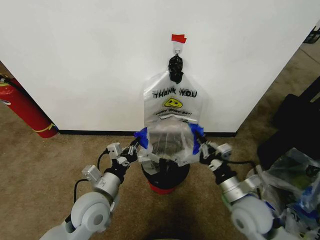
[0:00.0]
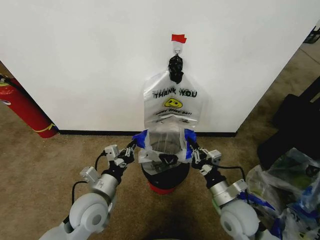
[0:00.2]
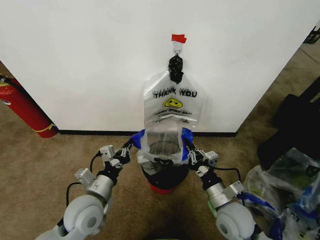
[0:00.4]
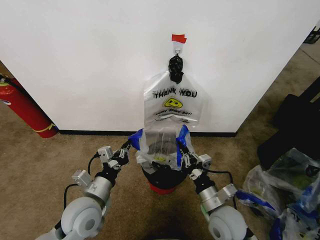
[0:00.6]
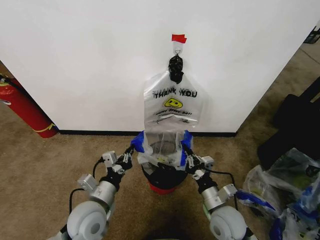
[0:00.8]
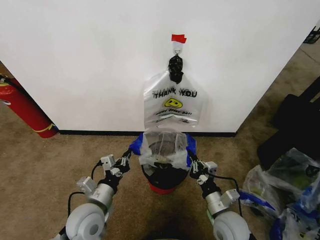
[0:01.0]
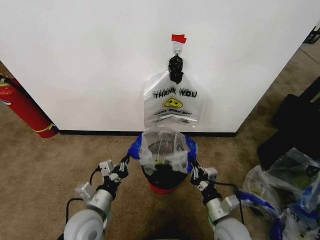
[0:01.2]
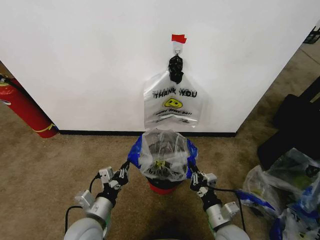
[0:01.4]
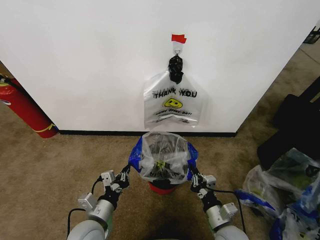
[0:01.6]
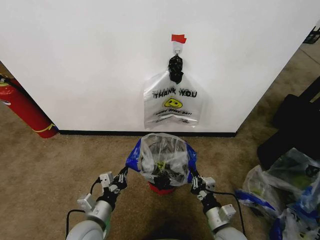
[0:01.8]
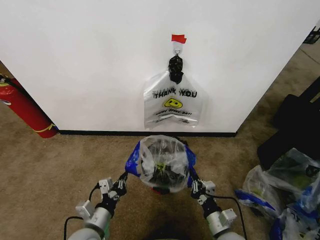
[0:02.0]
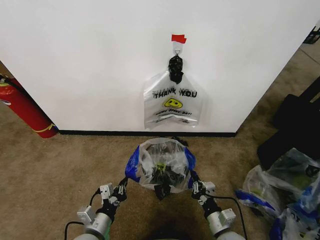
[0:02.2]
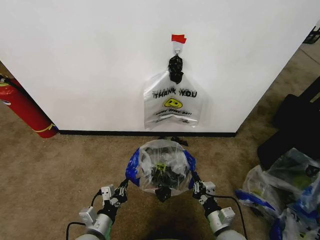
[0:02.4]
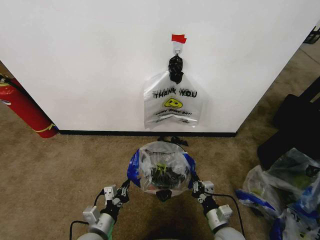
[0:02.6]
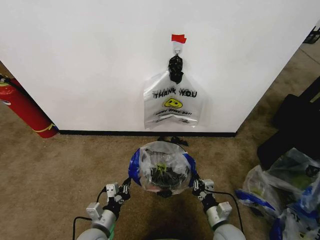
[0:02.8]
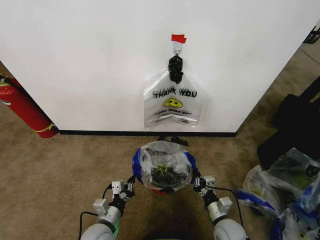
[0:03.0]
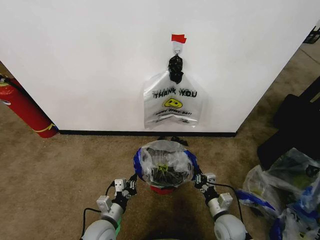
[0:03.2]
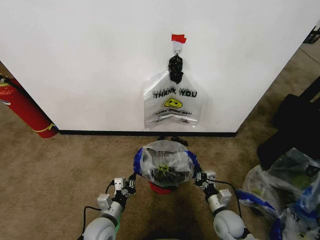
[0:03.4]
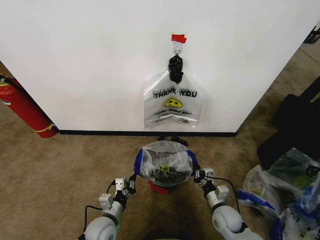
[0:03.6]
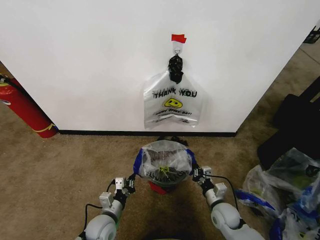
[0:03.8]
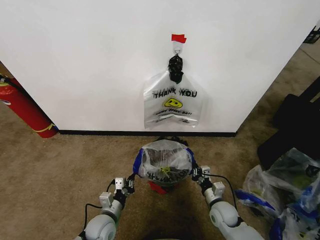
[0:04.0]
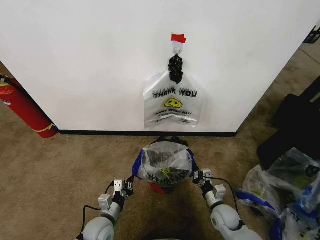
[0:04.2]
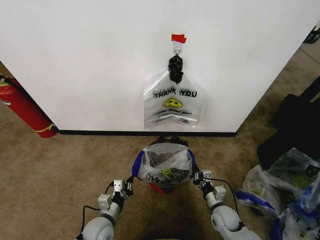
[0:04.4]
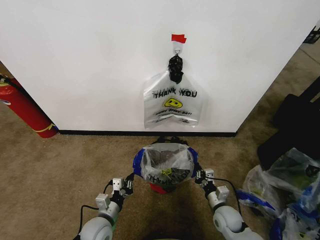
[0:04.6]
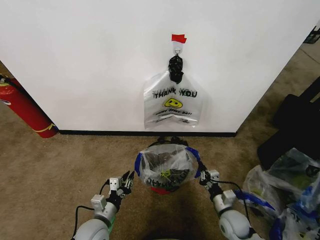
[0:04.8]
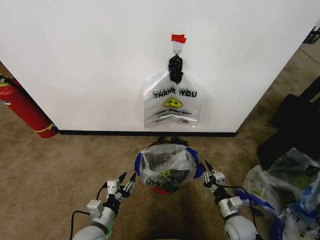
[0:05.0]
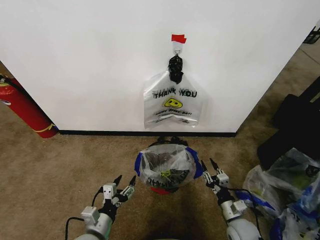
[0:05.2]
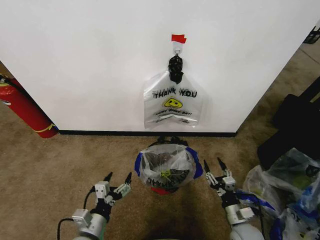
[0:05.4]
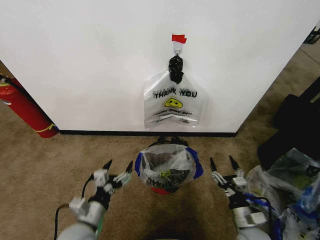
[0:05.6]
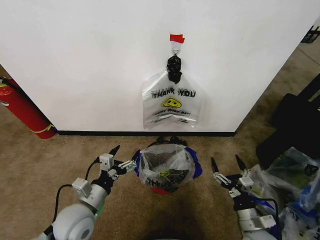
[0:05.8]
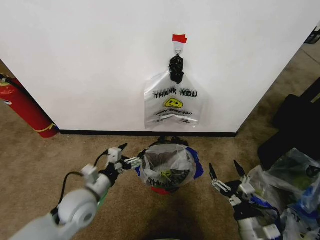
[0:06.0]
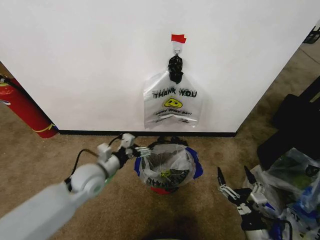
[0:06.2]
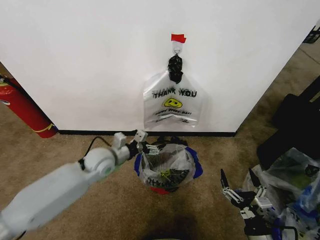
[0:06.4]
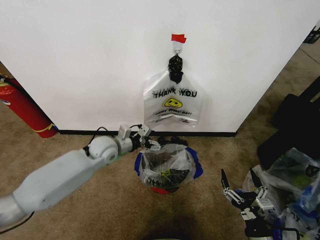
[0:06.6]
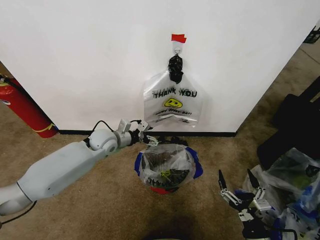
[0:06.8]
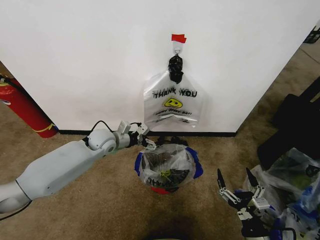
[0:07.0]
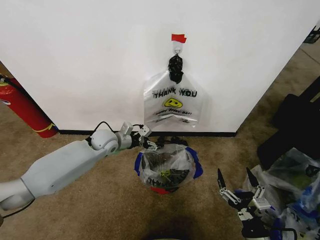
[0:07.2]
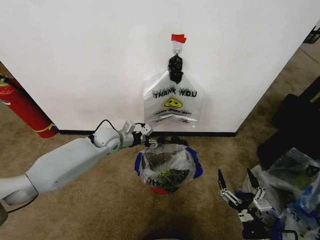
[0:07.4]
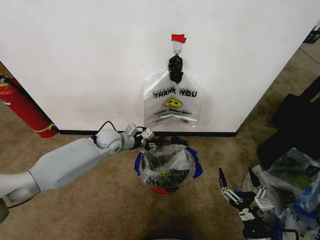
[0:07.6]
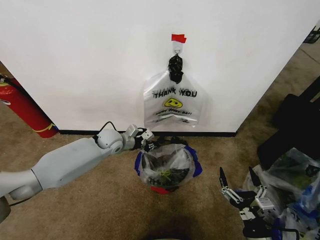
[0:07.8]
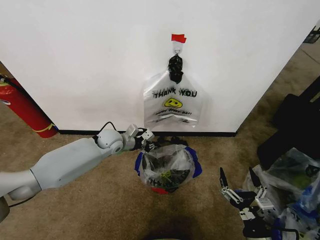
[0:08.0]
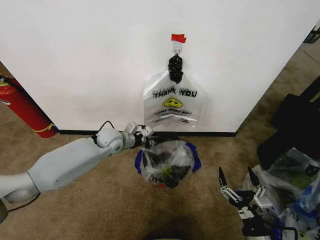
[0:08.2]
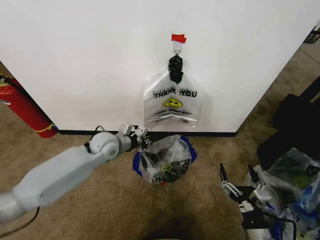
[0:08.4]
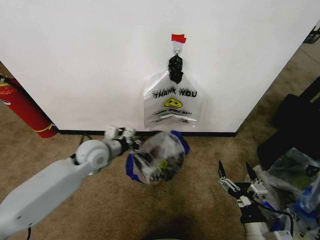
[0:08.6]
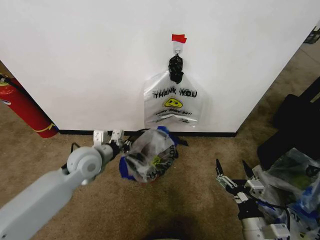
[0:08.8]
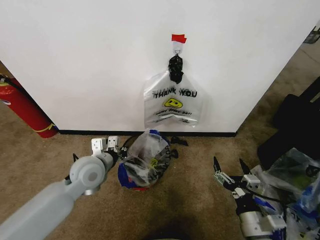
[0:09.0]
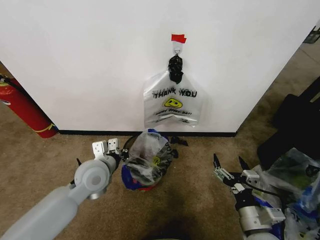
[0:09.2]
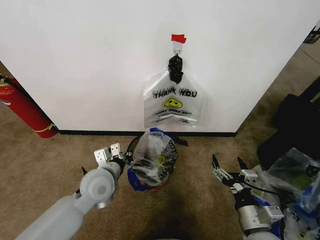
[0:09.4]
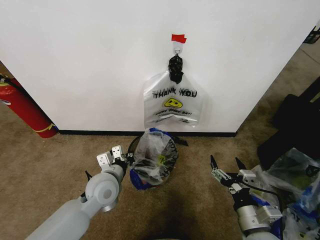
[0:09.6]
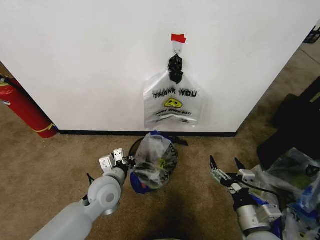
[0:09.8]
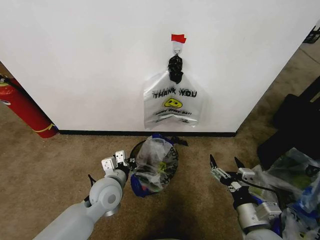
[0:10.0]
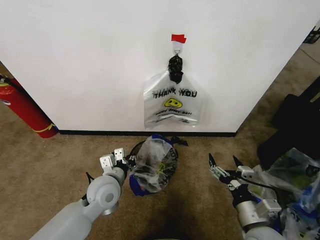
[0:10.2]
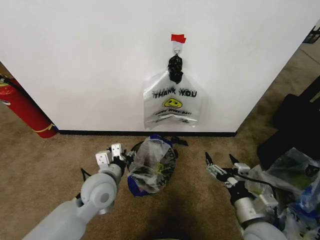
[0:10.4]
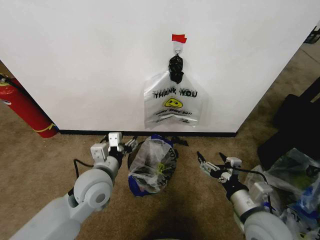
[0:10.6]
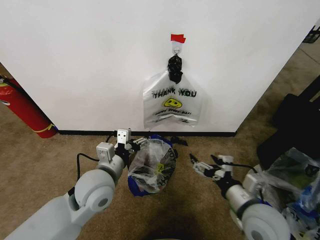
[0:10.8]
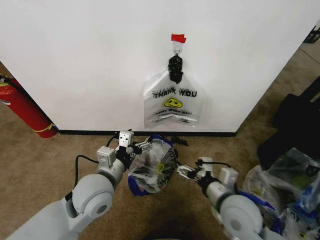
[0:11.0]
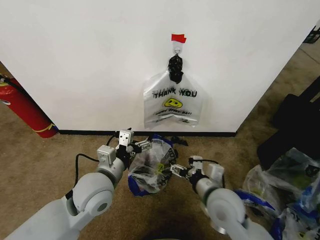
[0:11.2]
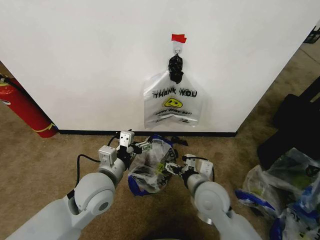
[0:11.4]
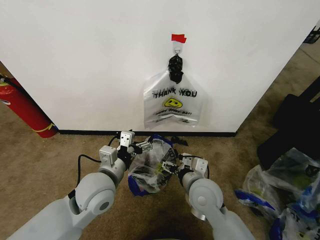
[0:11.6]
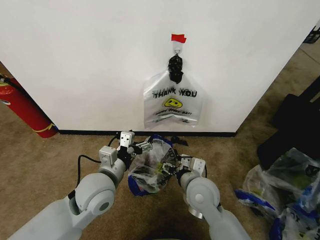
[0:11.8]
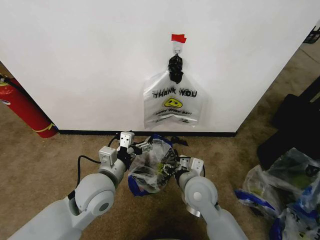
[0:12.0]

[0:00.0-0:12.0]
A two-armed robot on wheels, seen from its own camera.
Task of the whole recording: Pick up the garbage bag from the wall and place it over the trash bin.
0.0 to 1.6 s: The right gripper goes some 10 cm downward. Meanwhile the left gripper is displaced downward and backward by roughly 10 cm.
1.6 to 3.0 s: The grippers both shift downward by some 5 cm.
3.0 to 4.4 s: The right gripper shifts roughly 5 cm forward. Meanwhile the left gripper moves roughly 5 cm.
4.4 to 6.0 s: The right gripper shifts some 15 cm backward and upward, and opens up, while the left gripper shifts about 15 cm upward, and opens up.
6.0 to 7.6 s: The right gripper shifts approximately 5 cm backward; the left gripper moves forward, about 25 cm, and closes its fingers.
7.6 to 9.0 s: The left gripper travels backward by roughly 15 cm. Meanwhile the right gripper ends up about 5 cm from where it was.
9.0 to 10.4 s: The left gripper changes place by approximately 5 cm, and opens.
10.4 to 12.0 s: The left gripper opens, while the right gripper shifts some 20 cm to the left and forward, and closes up.

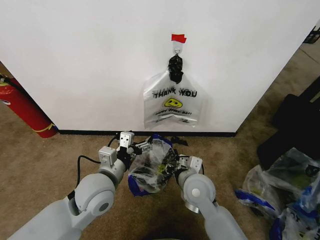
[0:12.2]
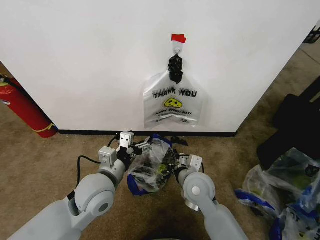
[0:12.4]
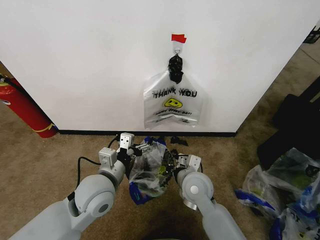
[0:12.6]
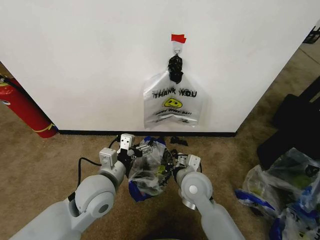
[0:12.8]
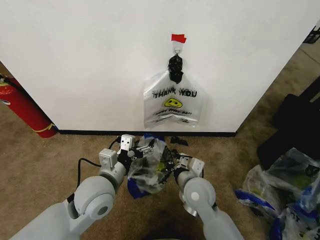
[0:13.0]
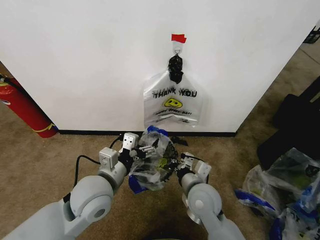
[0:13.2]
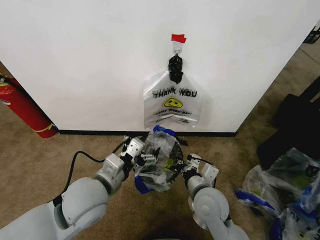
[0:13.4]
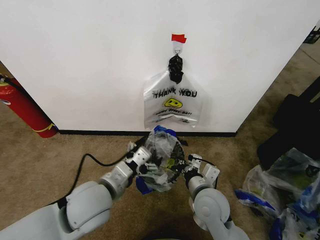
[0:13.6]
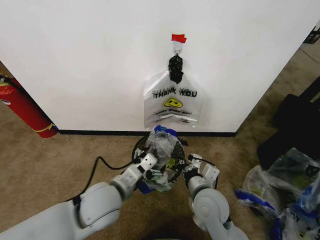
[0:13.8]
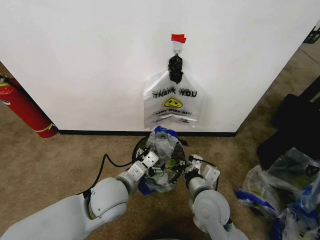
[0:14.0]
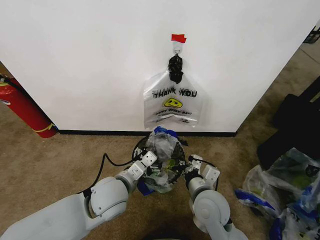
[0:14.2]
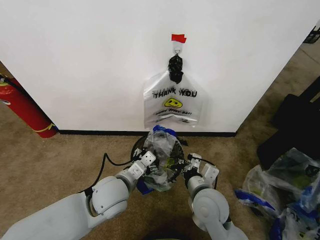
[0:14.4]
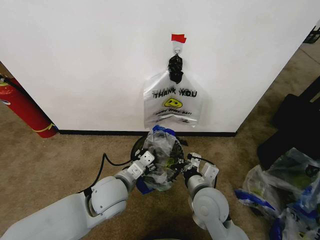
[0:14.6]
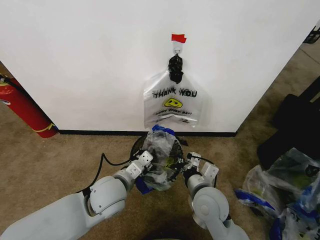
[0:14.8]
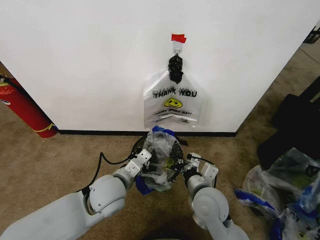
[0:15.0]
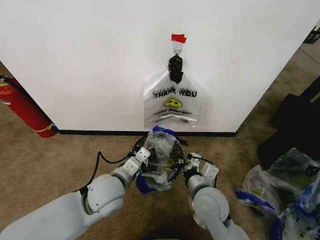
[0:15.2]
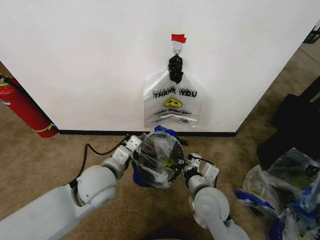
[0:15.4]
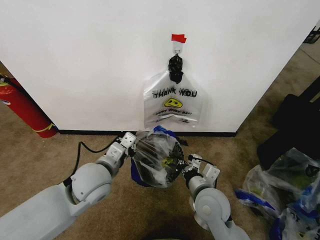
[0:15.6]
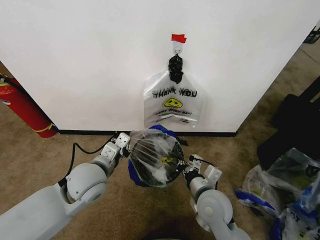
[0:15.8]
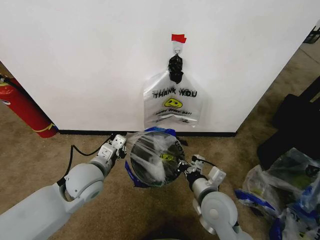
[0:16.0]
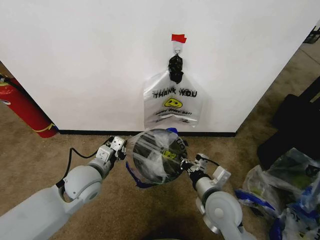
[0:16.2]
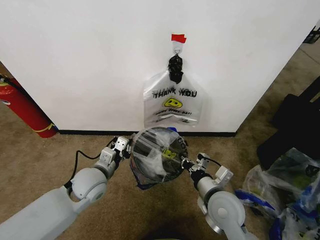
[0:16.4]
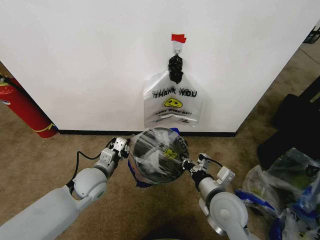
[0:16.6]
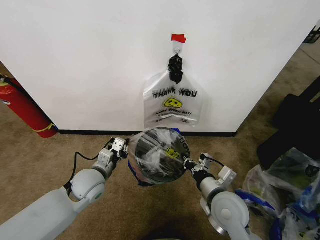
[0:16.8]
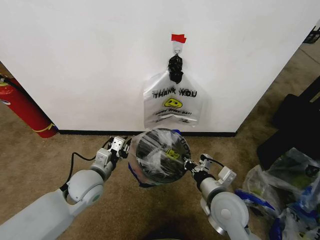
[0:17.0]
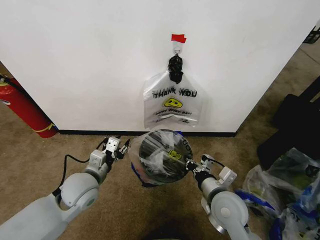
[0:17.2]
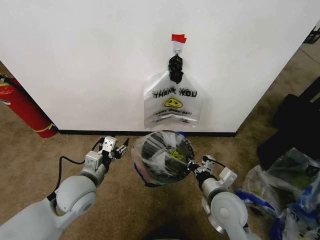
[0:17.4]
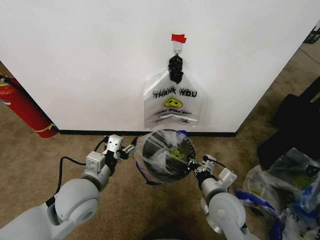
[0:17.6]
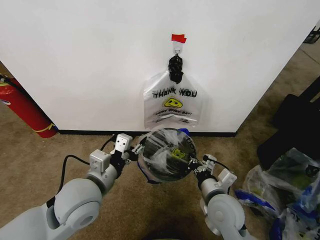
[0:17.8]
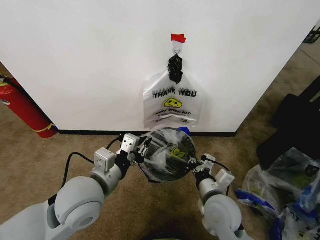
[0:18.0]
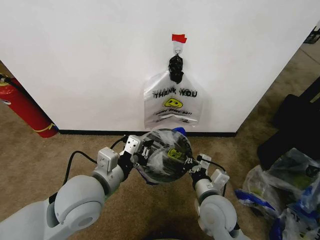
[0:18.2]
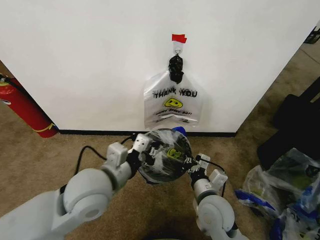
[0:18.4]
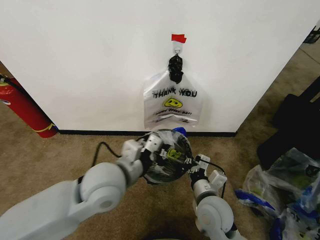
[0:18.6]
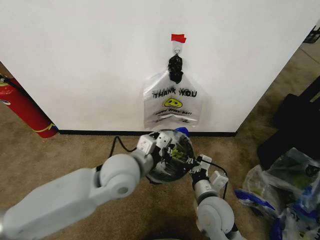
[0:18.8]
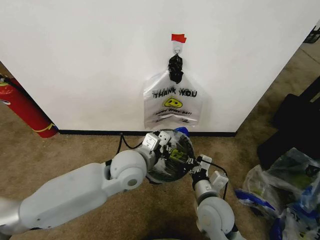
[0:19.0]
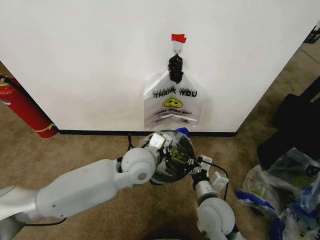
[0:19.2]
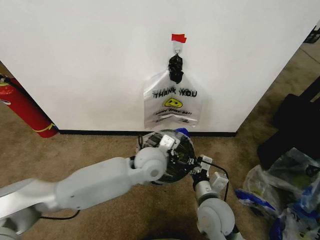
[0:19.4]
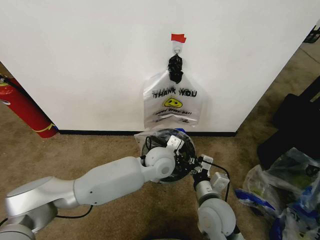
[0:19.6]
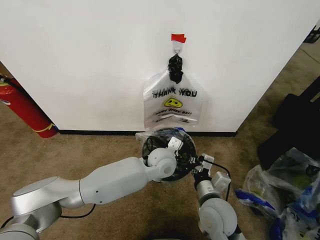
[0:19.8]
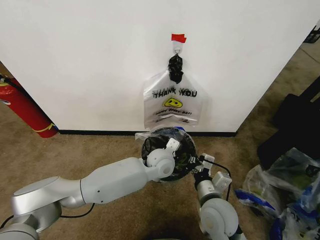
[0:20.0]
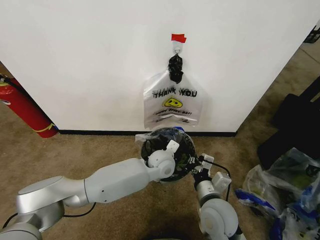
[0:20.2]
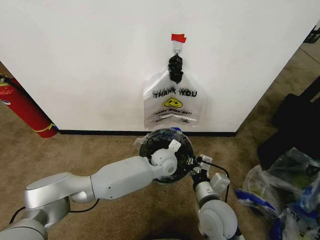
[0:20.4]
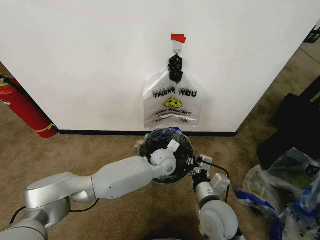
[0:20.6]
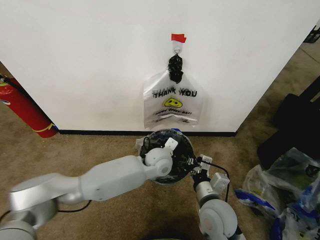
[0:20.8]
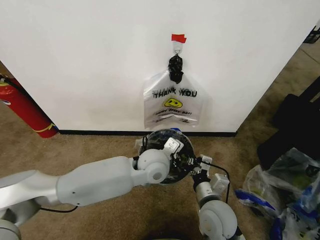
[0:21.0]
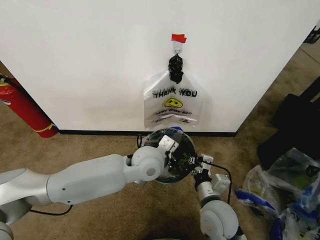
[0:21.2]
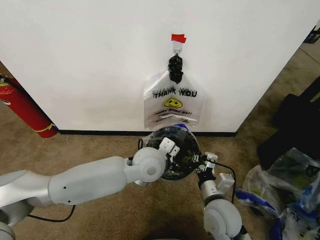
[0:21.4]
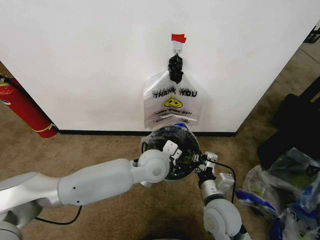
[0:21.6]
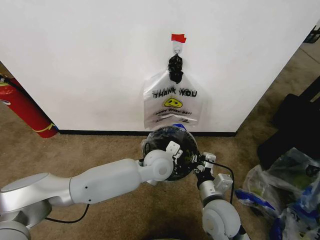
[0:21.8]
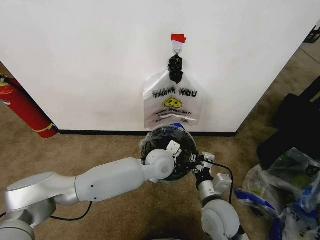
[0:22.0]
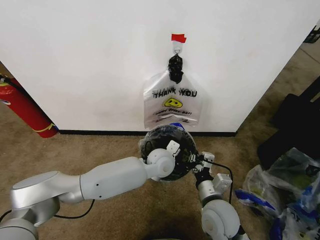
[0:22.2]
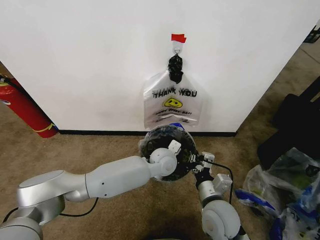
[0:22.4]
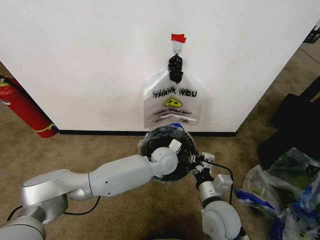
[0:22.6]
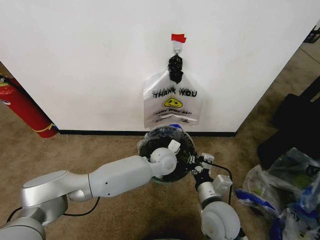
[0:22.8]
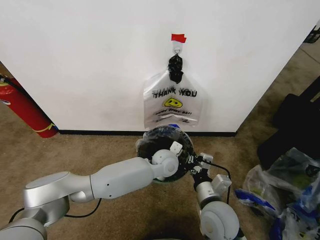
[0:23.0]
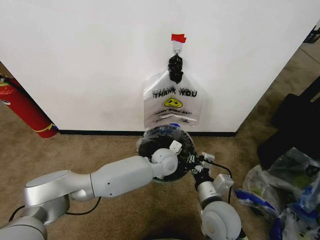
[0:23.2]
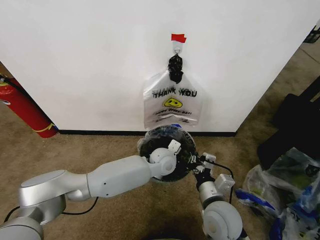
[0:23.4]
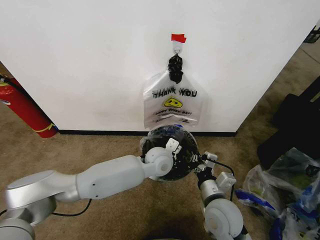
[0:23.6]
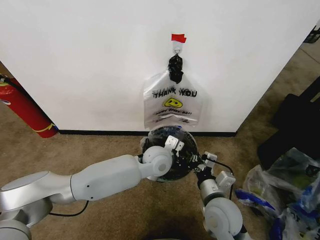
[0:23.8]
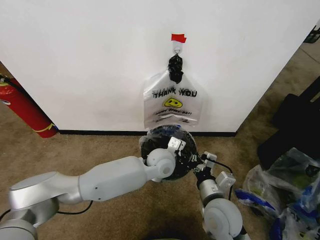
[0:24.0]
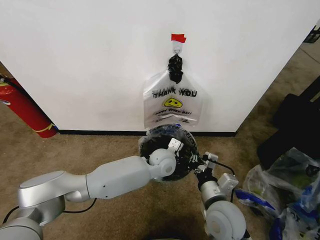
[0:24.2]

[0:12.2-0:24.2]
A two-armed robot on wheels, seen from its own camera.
Task of the whole recording: Pick up the garbage bag from the wall and place it over the trash bin.
12.2 to 13.8 s: The right gripper ends up some 5 cm from where it was, and closes its fingers.
13.8 to 15.2 s: The left gripper closes its fingers.
15.2 to 16.6 s: The left gripper moves to the left and forward, about 10 cm.
16.6 to 18.2 s: The left gripper goes roughly 15 cm upward and backward, and opens, then closes again.
18.2 to 19.8 s: The left gripper moves to the right, forward and downward, about 25 cm.
19.8 to 21.2 s: The left gripper heads upward, covering approximately 5 cm.
21.2 to 22.6 s: The left gripper travels downward, forward and to the right by about 10 cm.
22.6 to 24.2 s: The grippers stay close to where they were, moving slightly.
